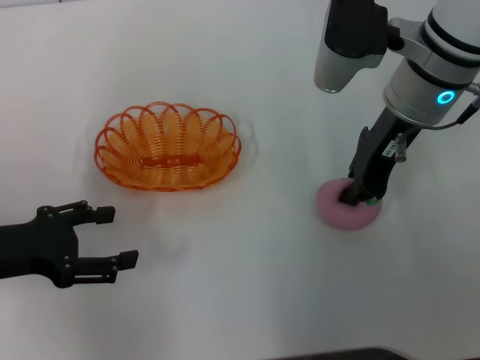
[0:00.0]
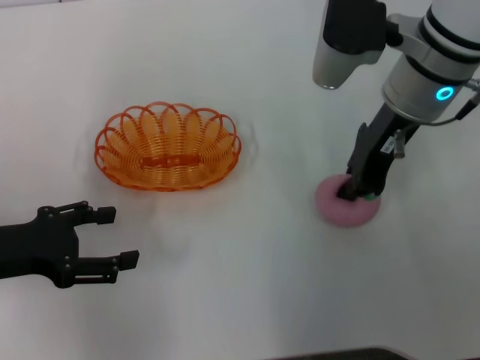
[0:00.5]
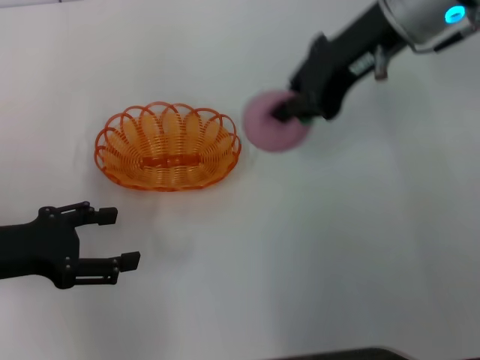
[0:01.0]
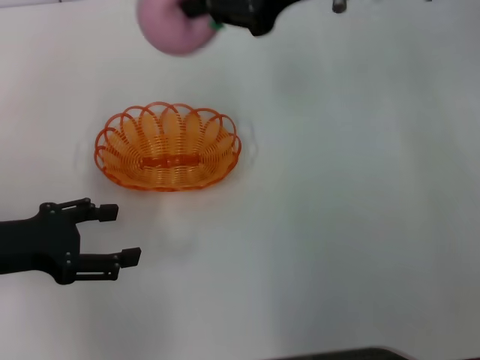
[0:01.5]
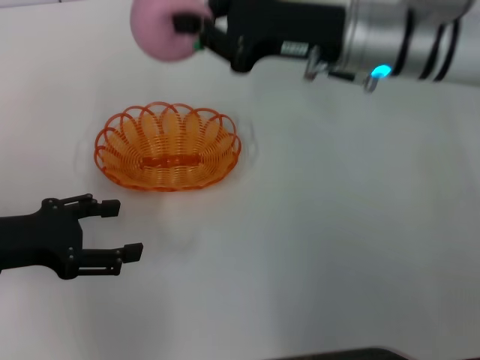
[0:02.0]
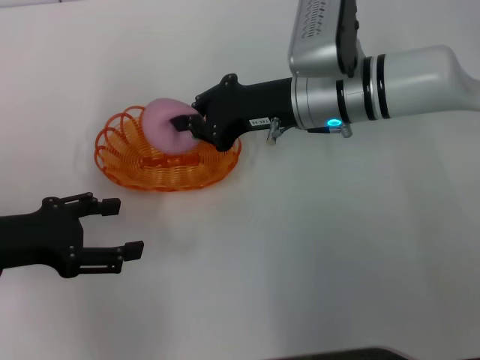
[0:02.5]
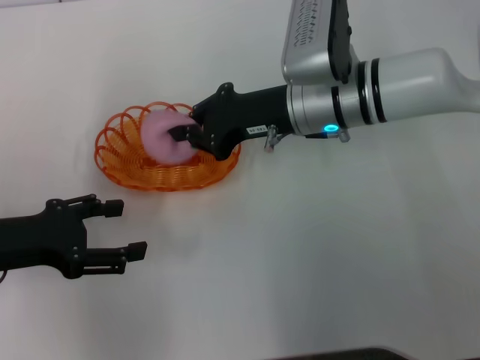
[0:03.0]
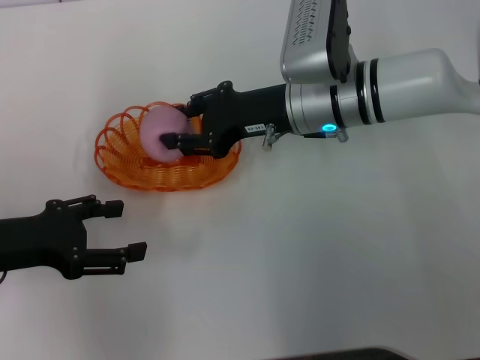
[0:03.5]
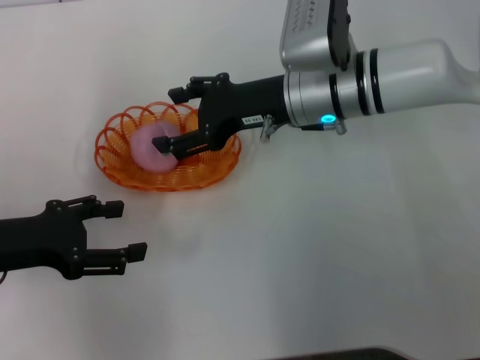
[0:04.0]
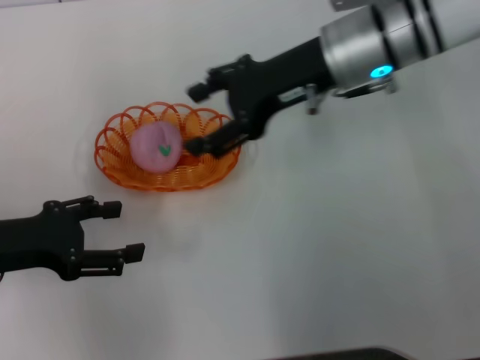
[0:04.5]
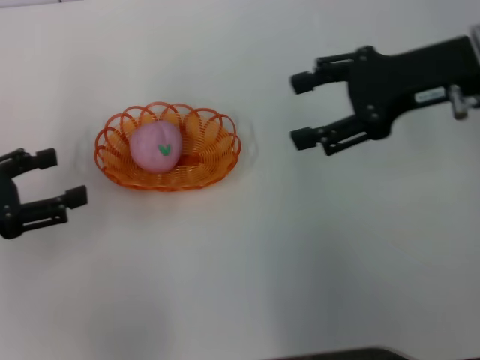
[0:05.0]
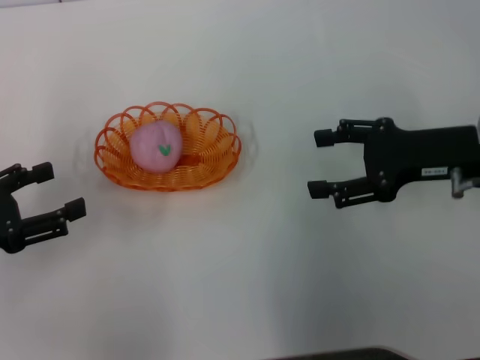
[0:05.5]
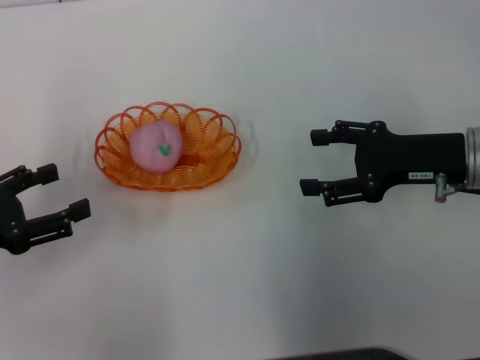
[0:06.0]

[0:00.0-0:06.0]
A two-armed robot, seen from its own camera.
Step, 0:01.5 to 0:04.5: Place the peach into the basket with the right gripper.
0:00.0 to 0:02.0: The right gripper reaches approximately 10 cm upward, then returns.
0:02.0 to 0:04.0: The right gripper shifts by roughly 5 cm, and opens its fingers.
0:04.0 to 0:06.0: The right gripper moves to the right and backward, approximately 15 cm.

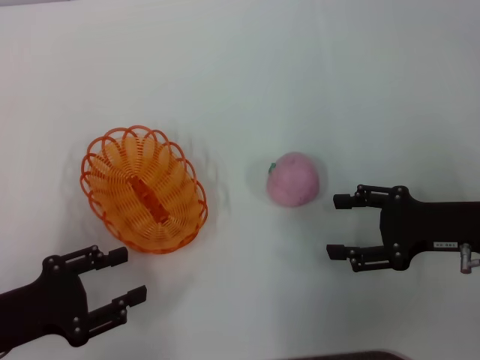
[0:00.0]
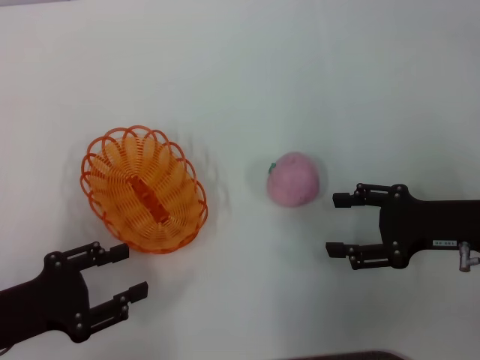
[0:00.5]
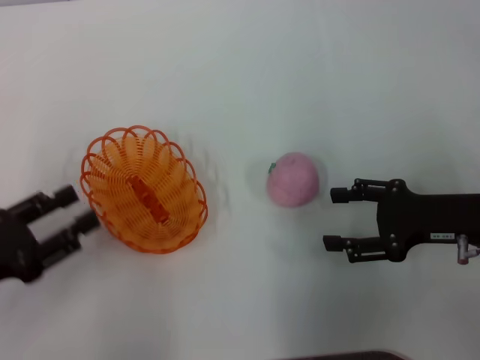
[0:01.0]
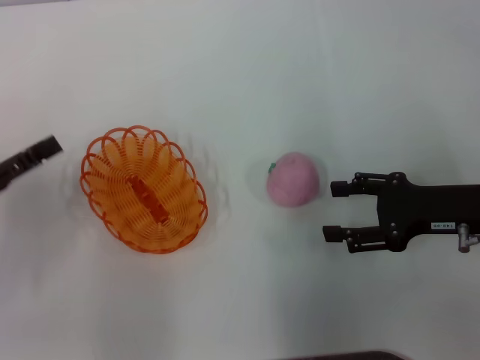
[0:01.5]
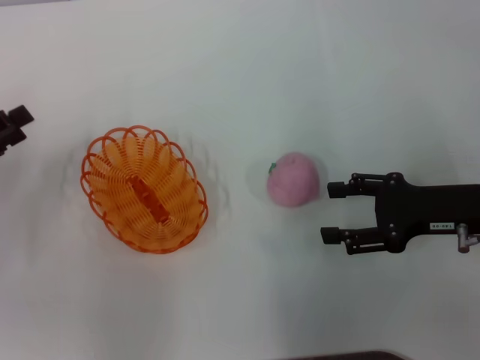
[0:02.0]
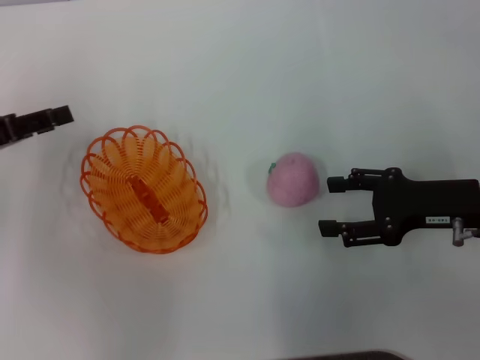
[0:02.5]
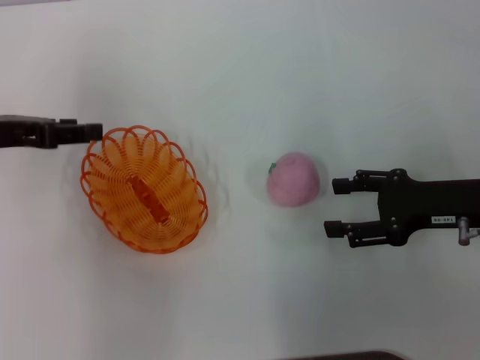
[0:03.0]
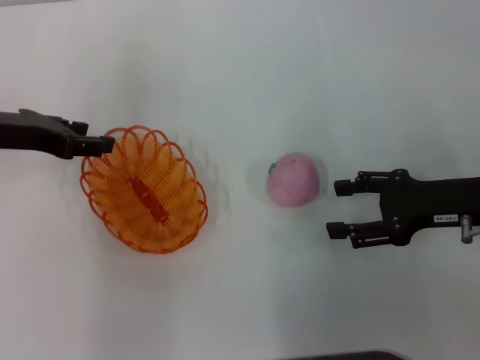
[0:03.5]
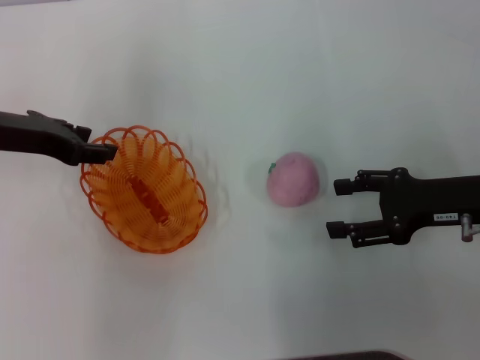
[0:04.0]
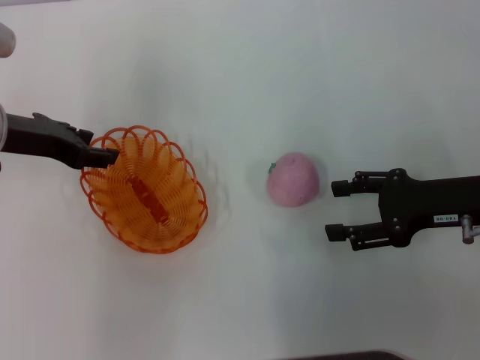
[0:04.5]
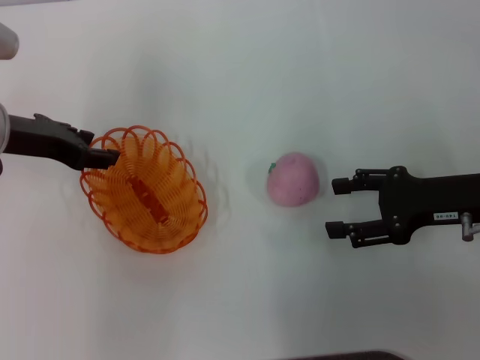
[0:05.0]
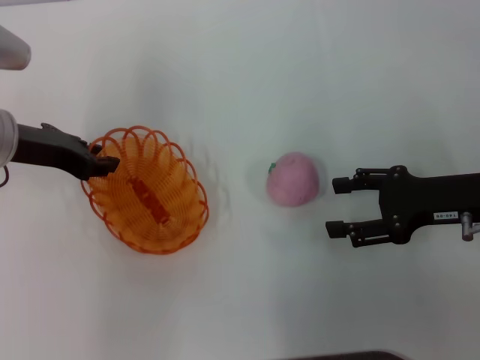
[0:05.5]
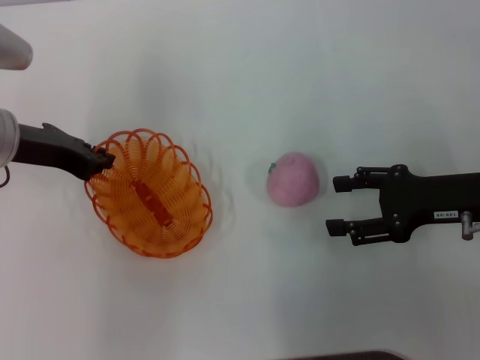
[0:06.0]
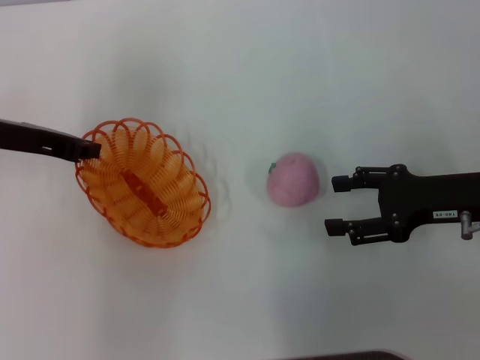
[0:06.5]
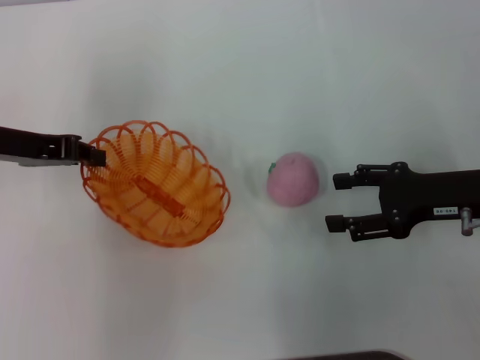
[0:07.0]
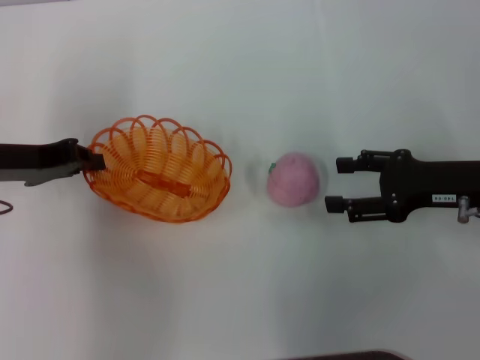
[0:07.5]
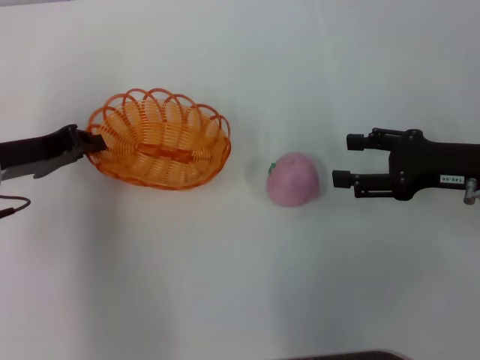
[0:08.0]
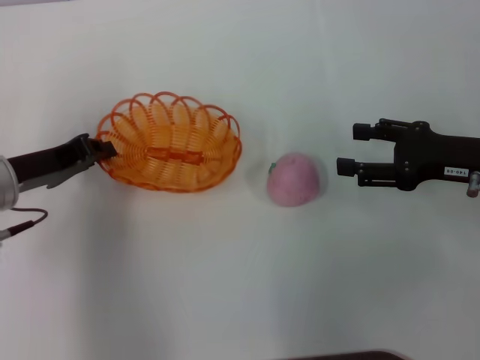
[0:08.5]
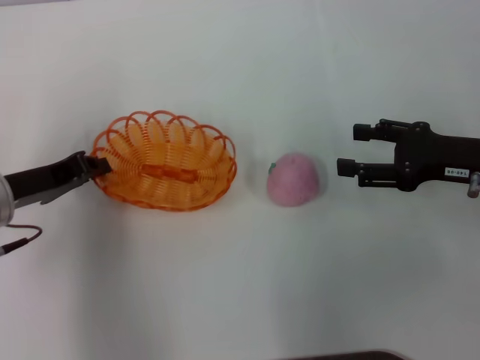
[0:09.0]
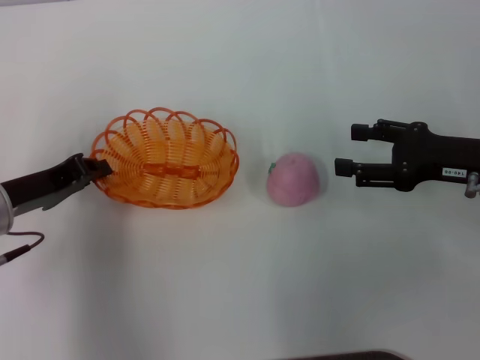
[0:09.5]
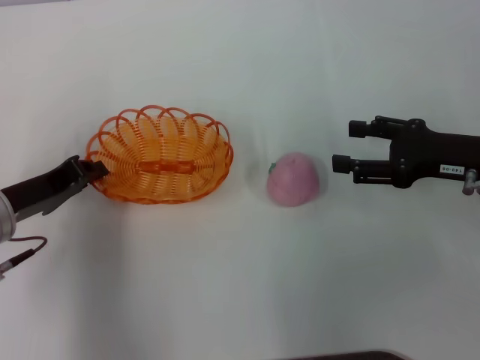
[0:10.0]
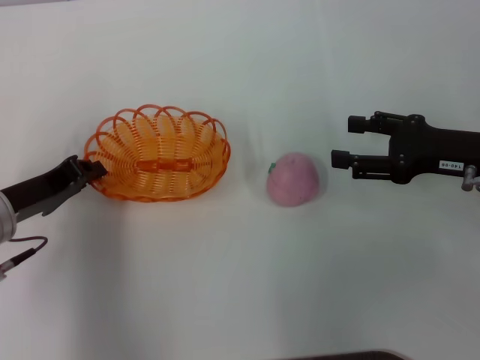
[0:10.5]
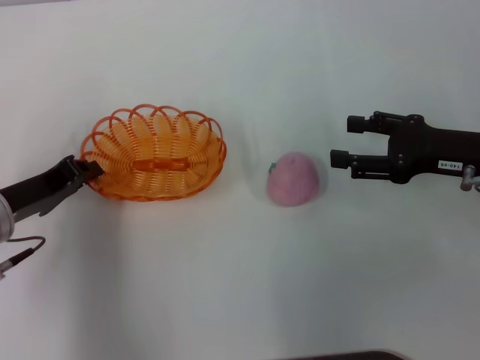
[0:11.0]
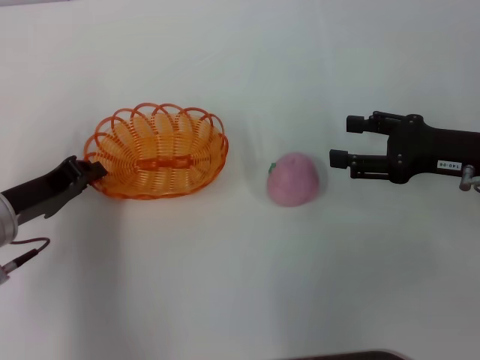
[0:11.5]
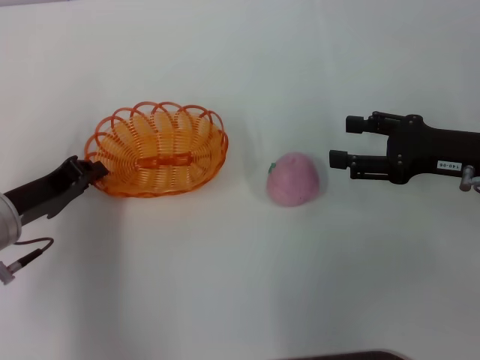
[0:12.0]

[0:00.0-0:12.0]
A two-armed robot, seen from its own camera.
Step, 0:00.0 to 0:07.0: Pick up the basket with the left gripper.
0:00.0 to 0:02.0: The left gripper shifts approximately 10 cm forward and to the left.
0:02.0 to 0:04.0: The left gripper goes approximately 15 cm to the right and forward.
0:04.0 to 0:06.0: The left gripper closes up.
0:06.0 to 0:08.0: The left gripper moves some 5 cm.
0:08.0 to 0:10.0: The left gripper ends up roughly 5 cm from where it was.
0:10.0 to 0:12.0: The grippers stay close to where they were, moving slightly.

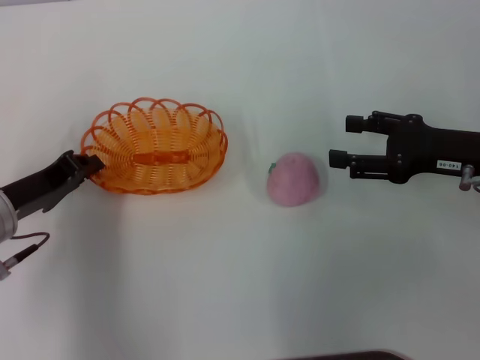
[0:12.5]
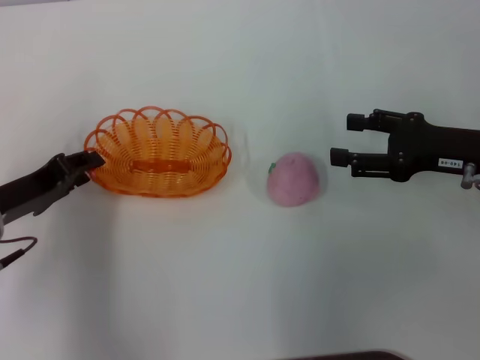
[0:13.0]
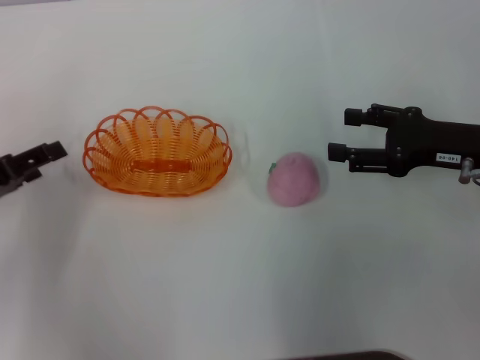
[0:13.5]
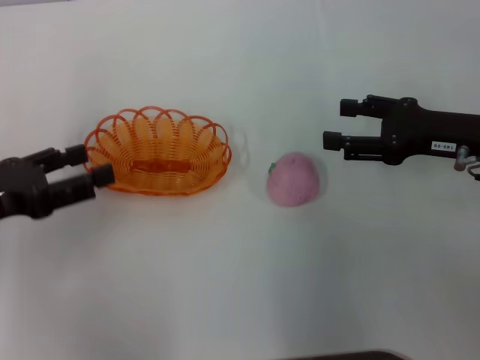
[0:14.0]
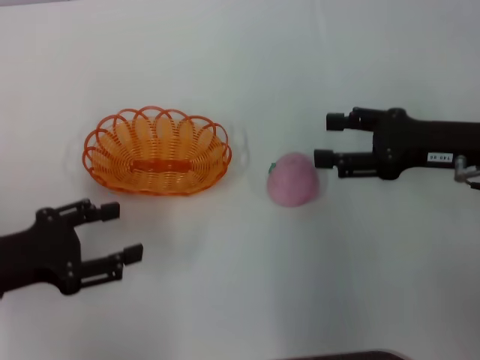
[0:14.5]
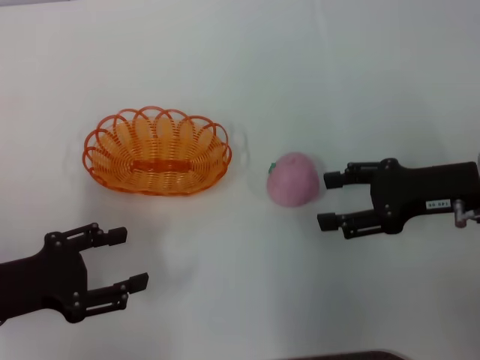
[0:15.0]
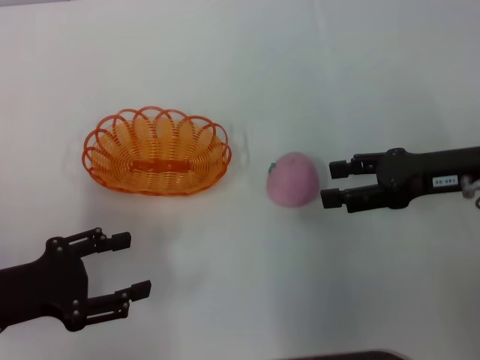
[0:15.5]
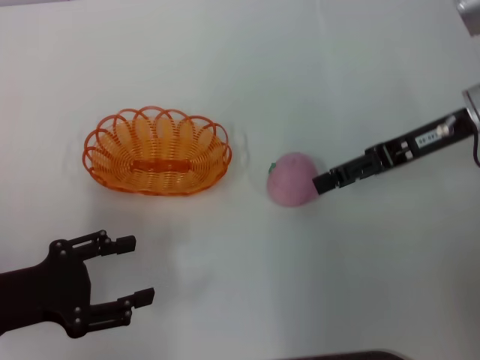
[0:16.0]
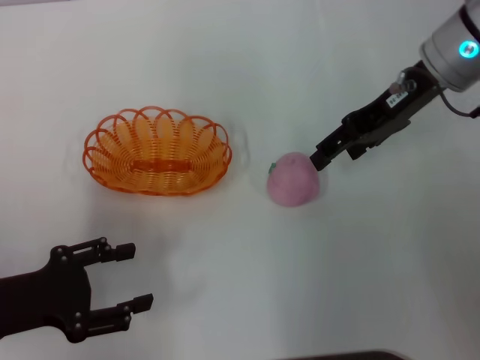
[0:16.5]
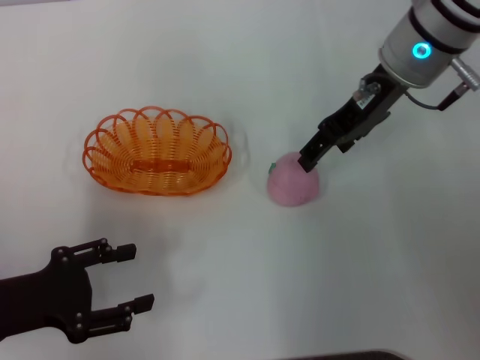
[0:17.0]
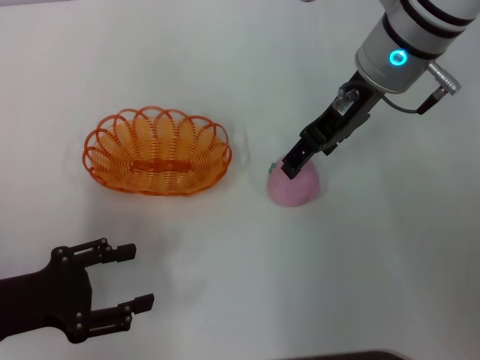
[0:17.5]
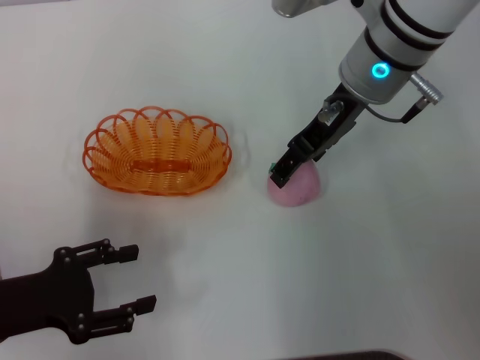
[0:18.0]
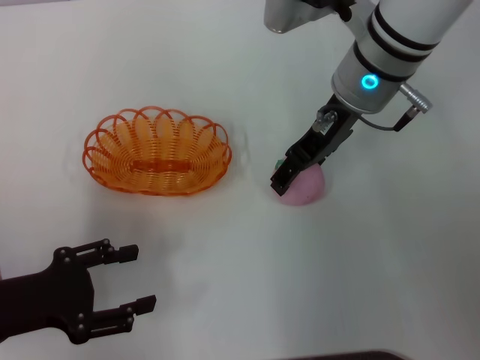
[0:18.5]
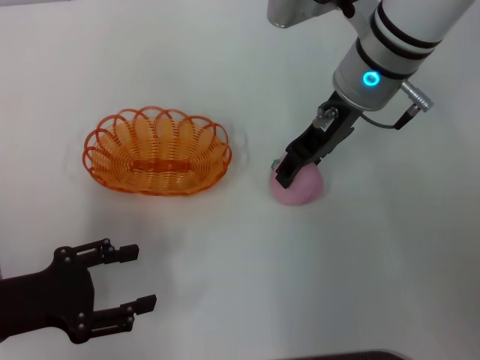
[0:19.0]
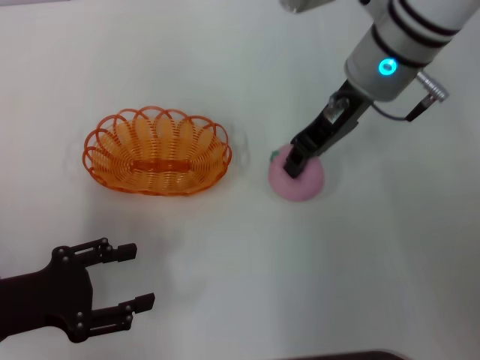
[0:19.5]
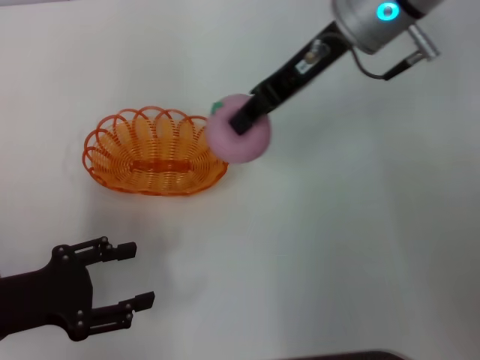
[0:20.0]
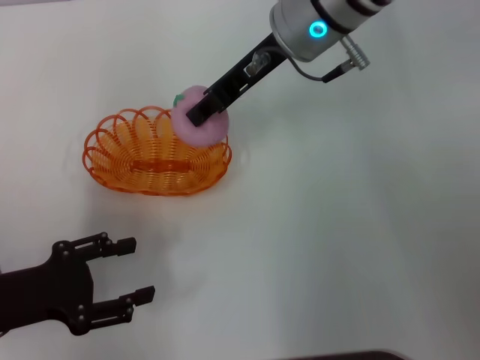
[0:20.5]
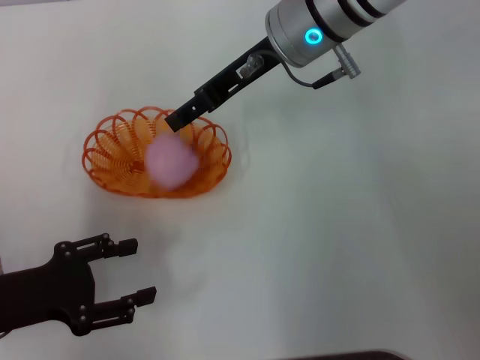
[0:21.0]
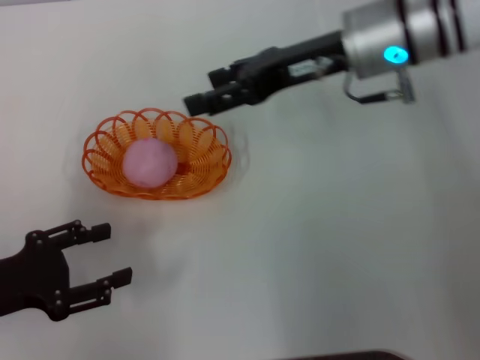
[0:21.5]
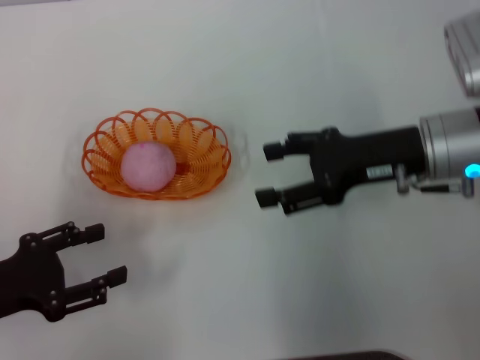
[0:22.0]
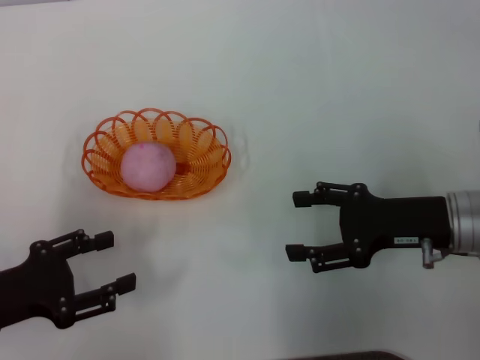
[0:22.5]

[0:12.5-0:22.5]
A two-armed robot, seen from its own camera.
Step, 0:14.5 to 0:20.0: Pick up the peach with the right gripper.
Step, 0:20.5 to 0:21.5: Place the peach into the basket with the right gripper.
0:12.5 to 0:14.5: The left gripper ends up approximately 5 cm from where it was, and opens its fingers.
0:14.5 to 0:16.5: The right gripper shifts roughly 15 cm upward, forward and to the left.
0:16.5 to 0:18.5: The right gripper travels to the left by roughly 10 cm.
0:18.5 to 0:20.5: The right gripper moves about 5 cm, and closes up.
0:20.5 to 0:22.5: The right gripper travels to the right, backward and downward by about 25 cm, and opens.
